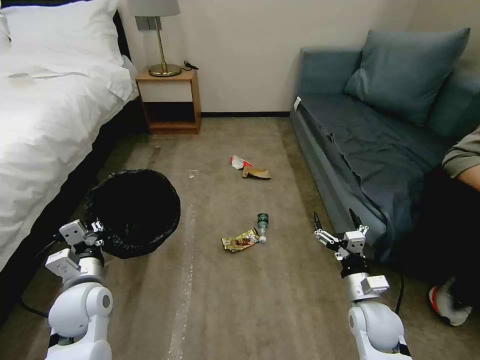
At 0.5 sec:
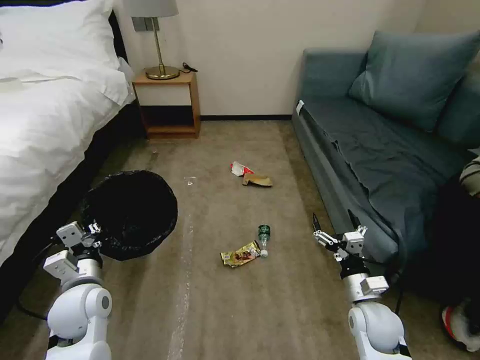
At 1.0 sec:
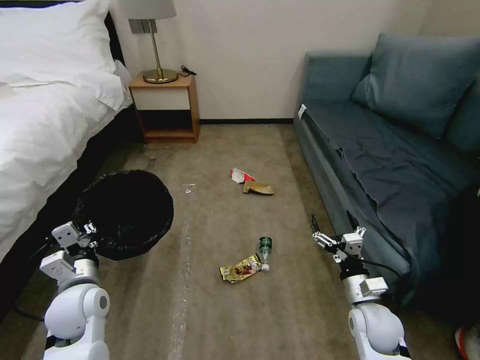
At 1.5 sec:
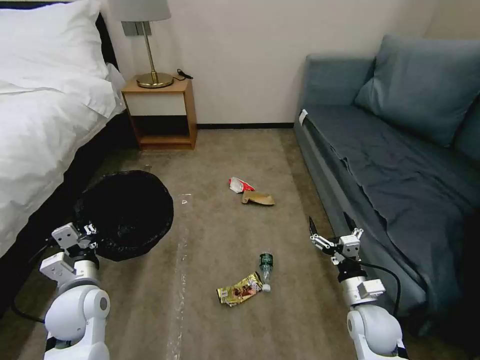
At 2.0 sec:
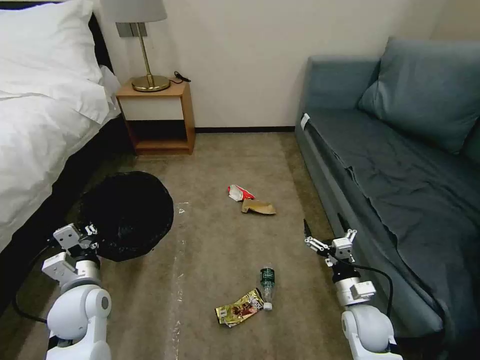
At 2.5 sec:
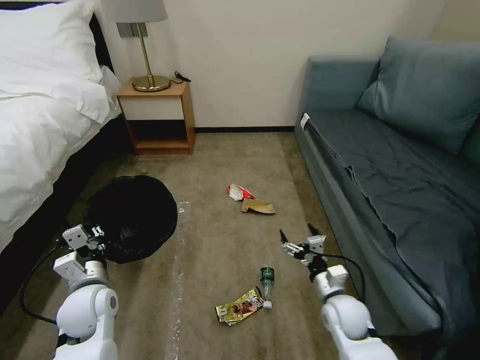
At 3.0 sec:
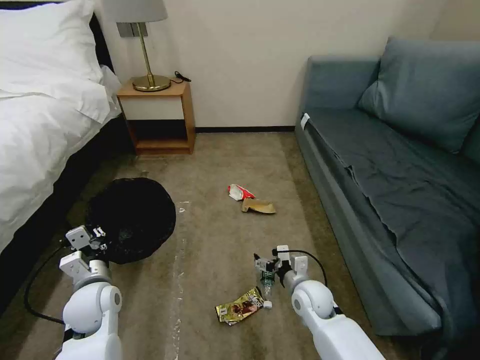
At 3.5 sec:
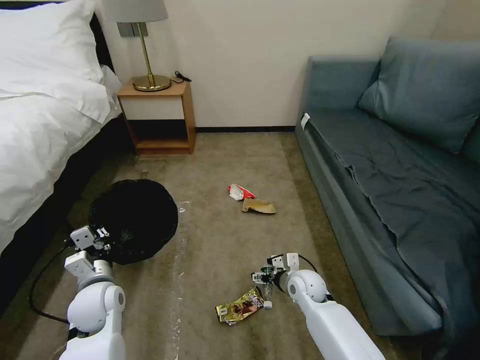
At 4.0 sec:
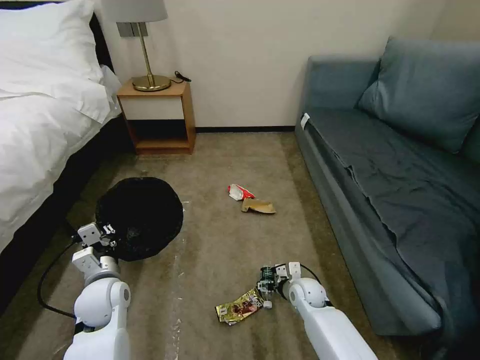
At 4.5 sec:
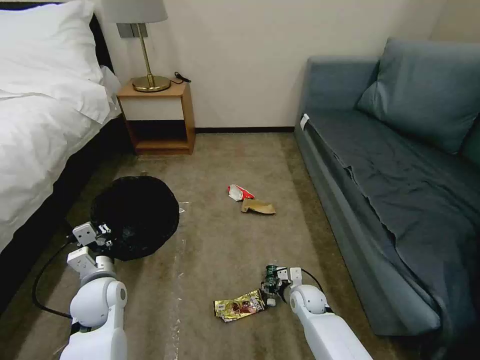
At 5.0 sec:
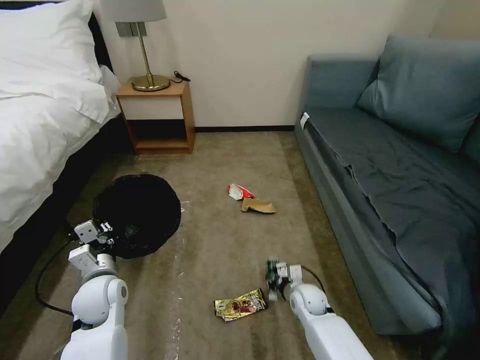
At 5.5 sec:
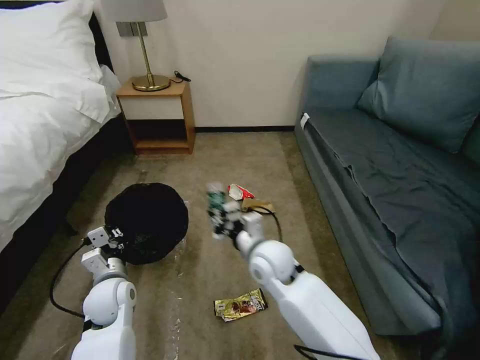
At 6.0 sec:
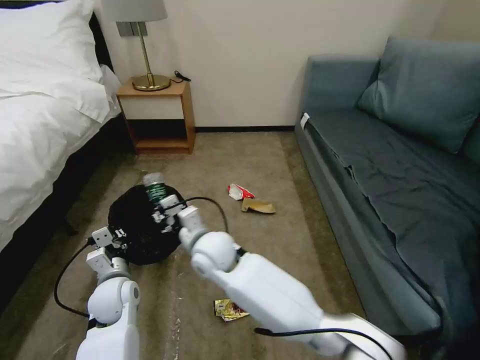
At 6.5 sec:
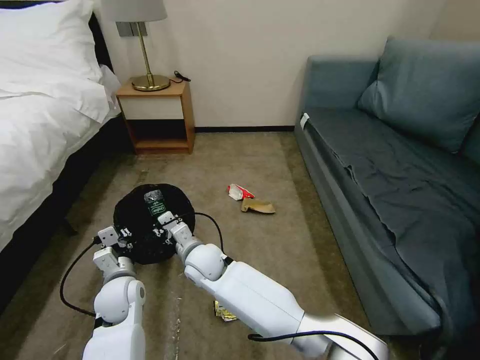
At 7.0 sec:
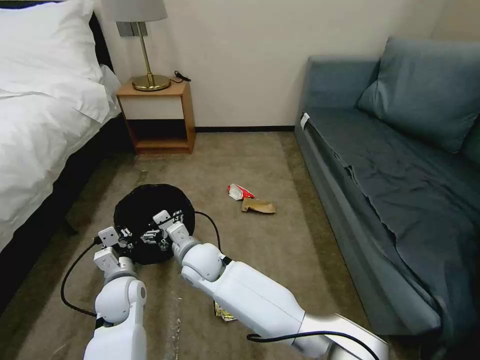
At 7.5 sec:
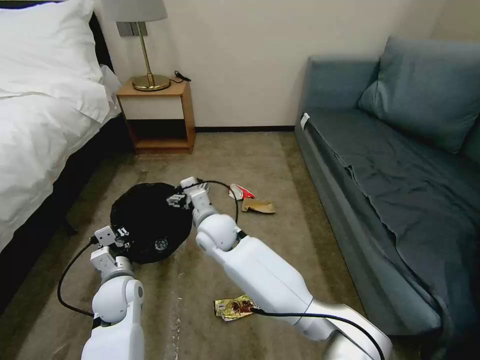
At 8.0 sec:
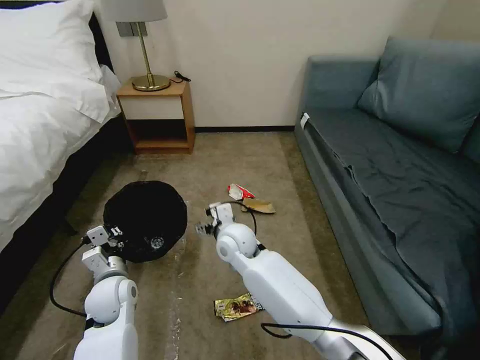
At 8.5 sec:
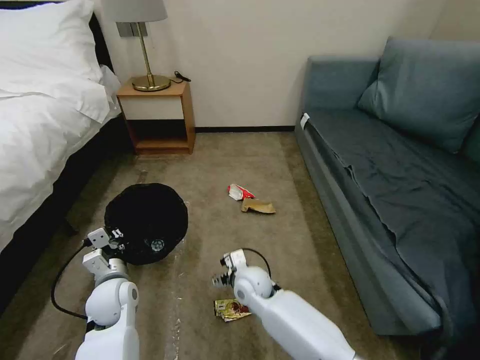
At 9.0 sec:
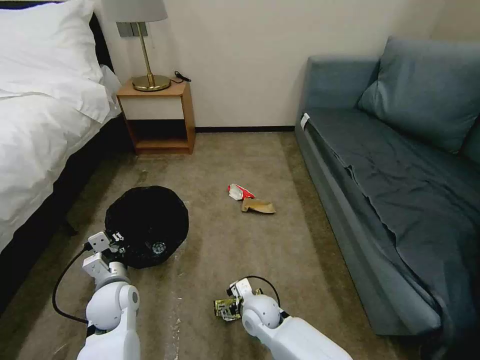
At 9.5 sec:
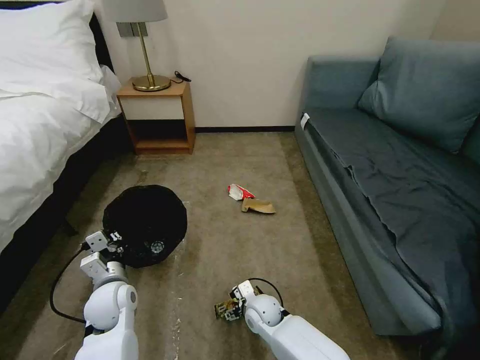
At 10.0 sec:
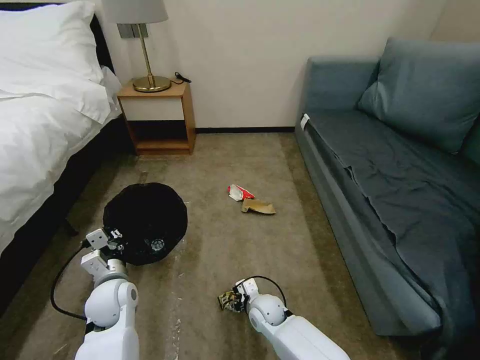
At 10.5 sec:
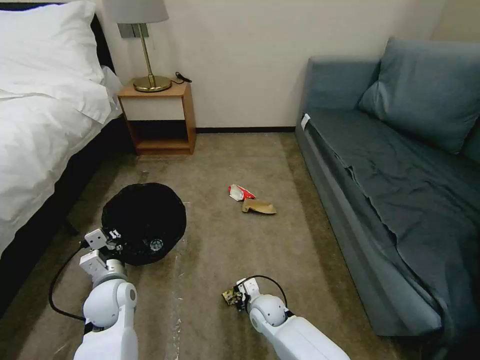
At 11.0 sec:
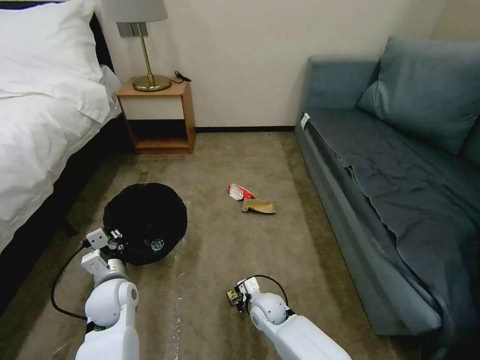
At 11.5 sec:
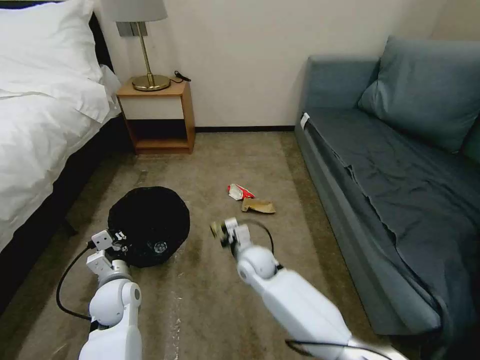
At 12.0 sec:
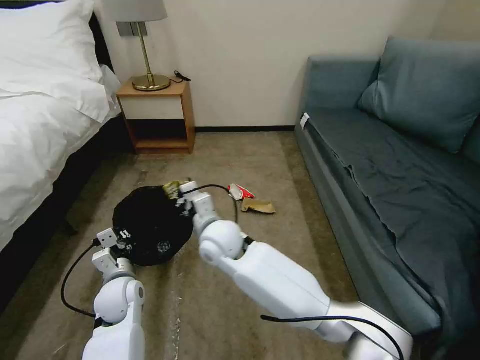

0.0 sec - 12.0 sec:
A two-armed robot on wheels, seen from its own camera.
Task of the whole recording: Pick up the trash bin, then pick up the garbage on the floor and place it into the trash bin.
2.0 sec - 4.0 sec: The right gripper shifts some 15 cm forward, to the left and downward.
4.0 sec - 6.0 sec: The right gripper shifts roughly 35 cm to the left and upward, and closes its fingers.
6.0 sec - 8.0 sec: The right gripper moves to the right, approximately 5 cm, and opens its fingers.
8.0 sec - 10.0 sec: The right gripper heads downward, backward and to the right, covering approximately 25 cm.
10.0 sec - 12.0 sec: The right gripper goes roughly 25 cm upward and to the left, and closes up.

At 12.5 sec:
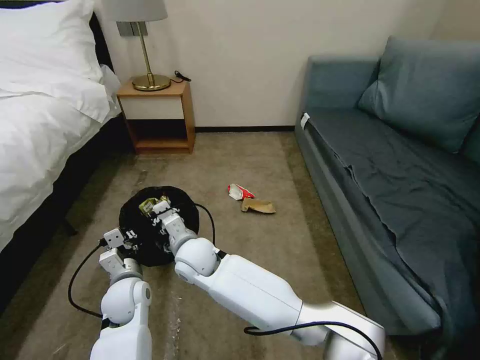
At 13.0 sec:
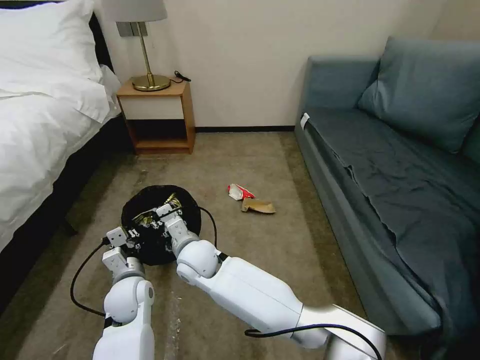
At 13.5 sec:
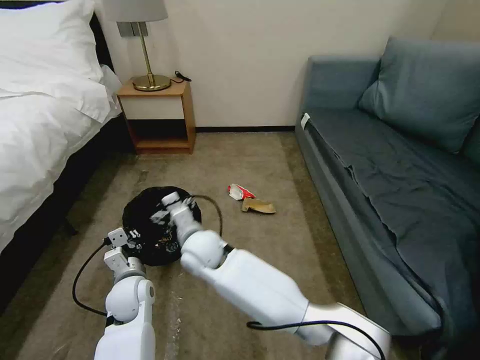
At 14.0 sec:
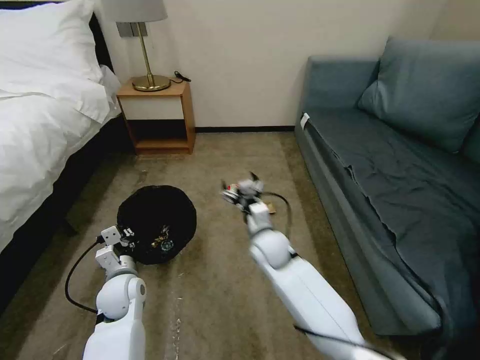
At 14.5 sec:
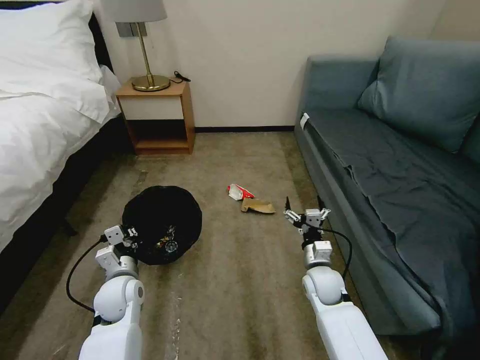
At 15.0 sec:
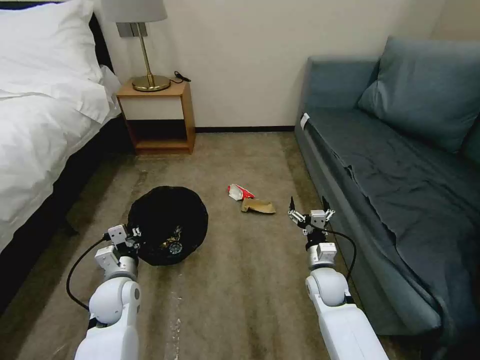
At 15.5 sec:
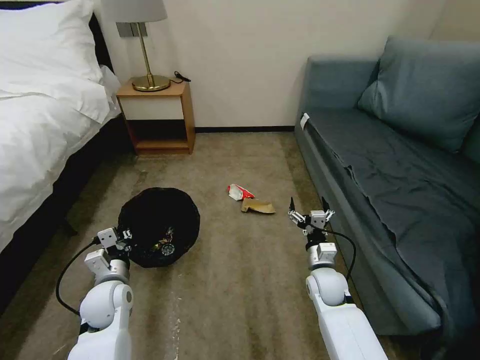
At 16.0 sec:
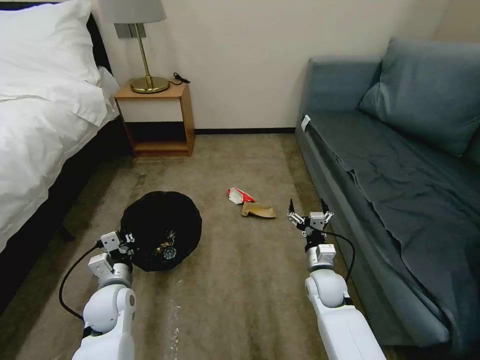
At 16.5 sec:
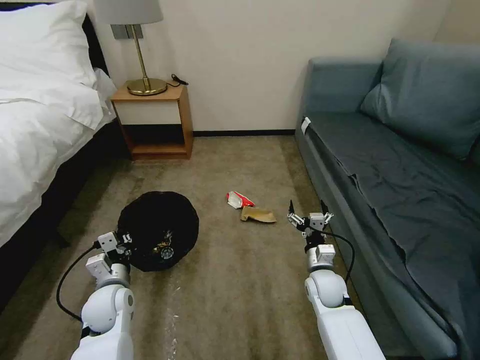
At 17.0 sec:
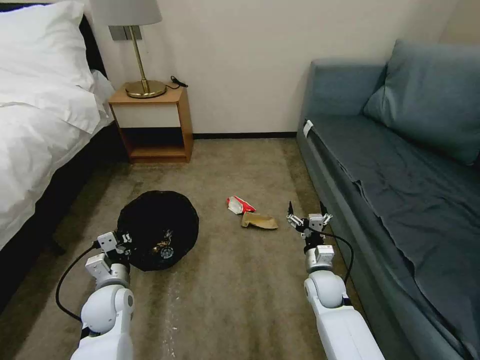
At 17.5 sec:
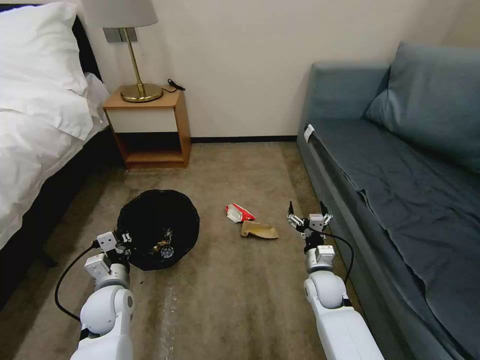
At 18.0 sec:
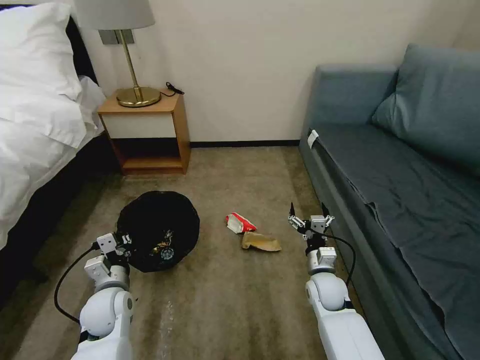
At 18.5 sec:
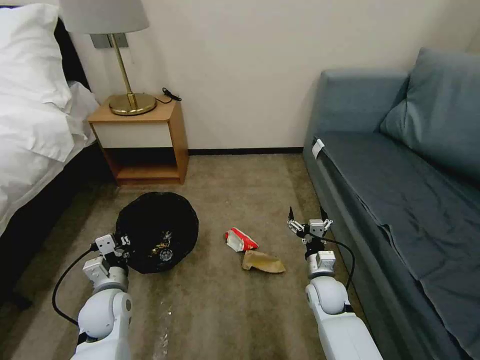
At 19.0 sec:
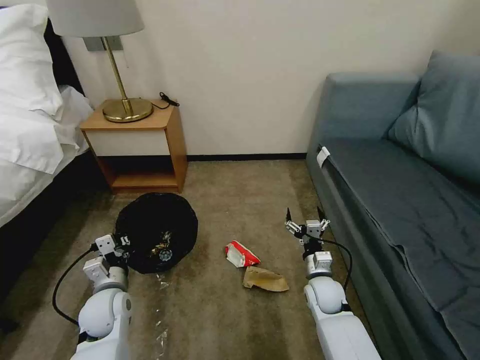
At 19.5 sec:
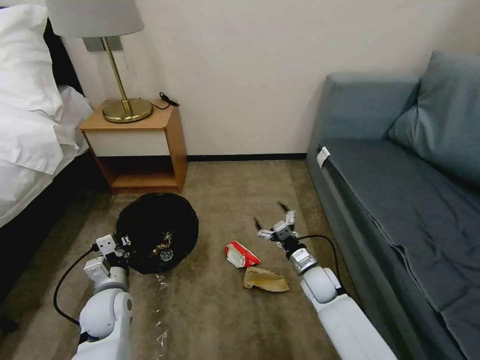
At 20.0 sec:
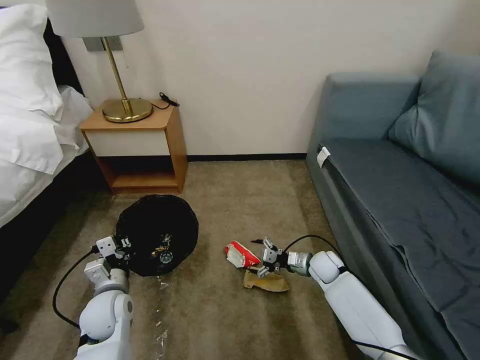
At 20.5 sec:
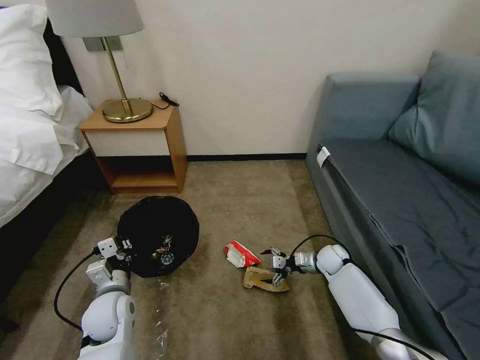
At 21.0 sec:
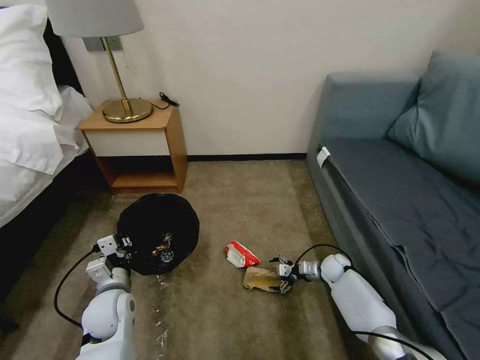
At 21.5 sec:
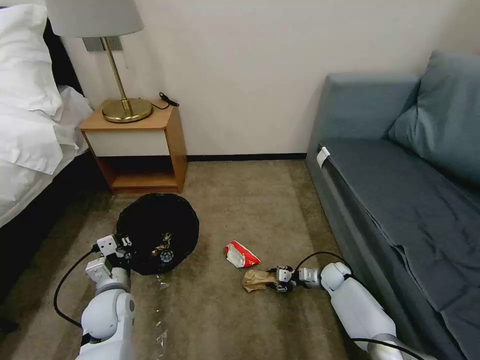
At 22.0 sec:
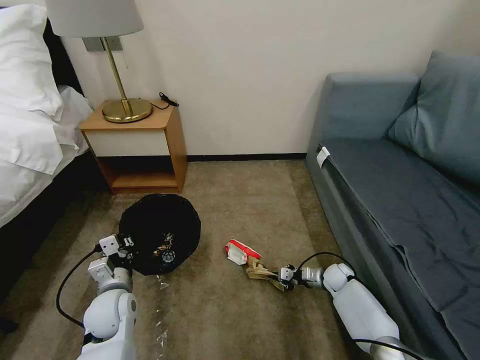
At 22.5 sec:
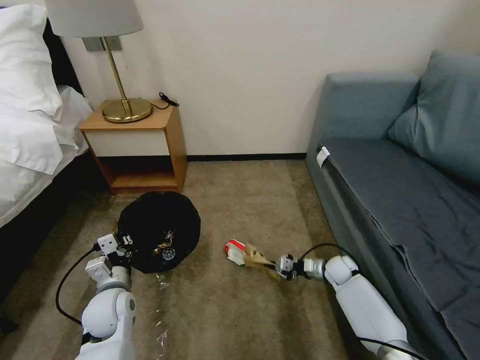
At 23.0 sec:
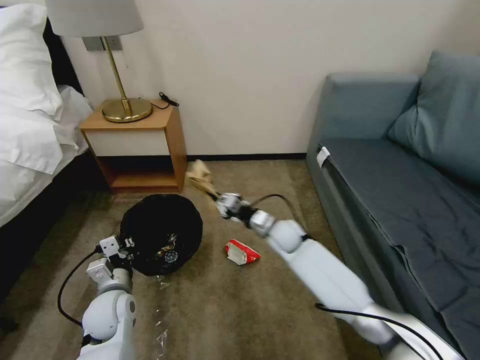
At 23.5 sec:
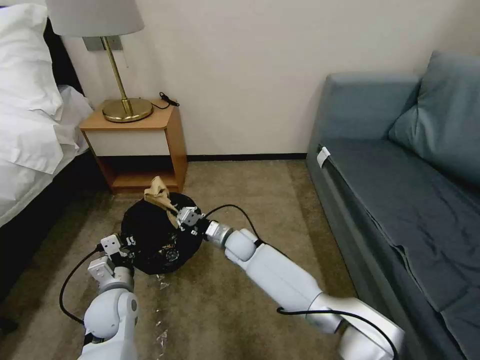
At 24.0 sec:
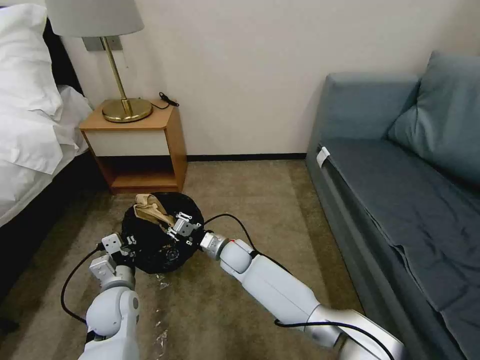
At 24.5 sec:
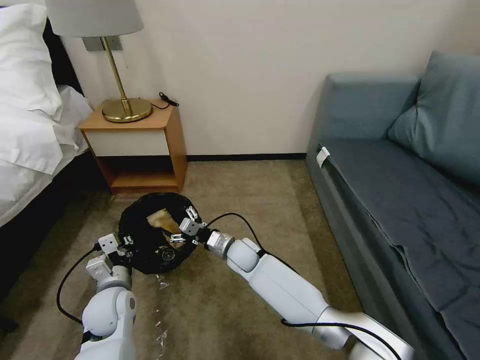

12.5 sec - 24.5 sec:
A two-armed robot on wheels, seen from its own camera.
Task of the whole recording: Pick up the trash bin, then pick up the garbage on the floor and place it into the trash bin.
12.5 sec - 14.5 sec: The right gripper shifts some 30 cm to the right, and opens up.
14.5 sec - 16.5 sec: There are only small adjustments of the grippers.
18.5 sec - 20.5 sec: The right gripper moves forward and to the right, about 15 cm.
20.5 sec - 22.5 sec: The right gripper closes its fingers.
22.5 sec - 24.5 sec: The right gripper is displaced to the left by approximately 30 cm, and opens.

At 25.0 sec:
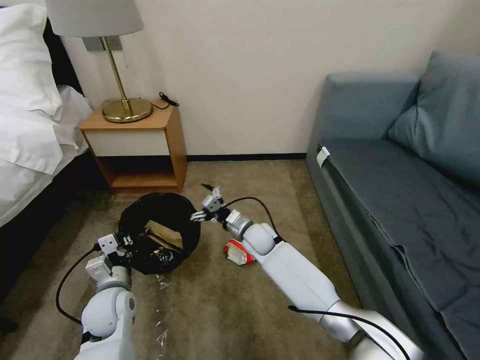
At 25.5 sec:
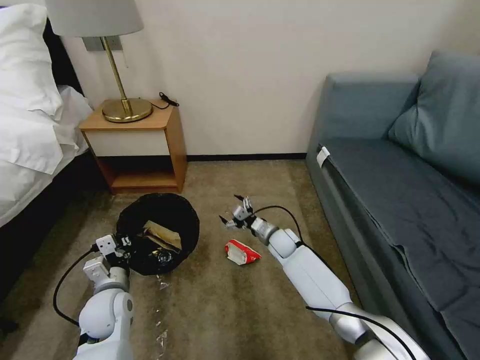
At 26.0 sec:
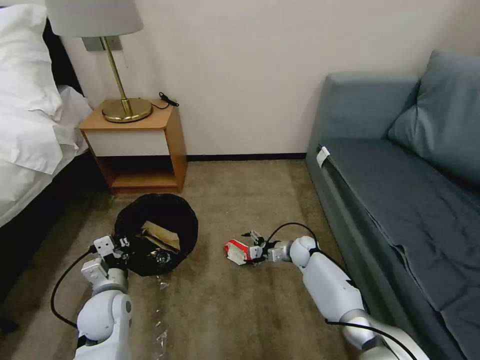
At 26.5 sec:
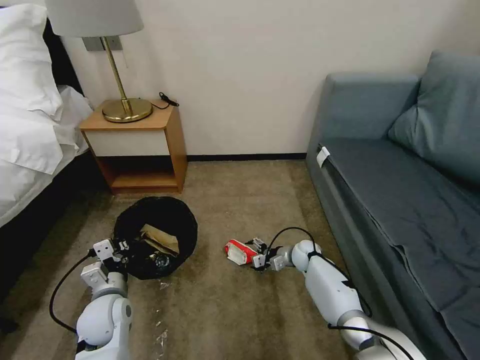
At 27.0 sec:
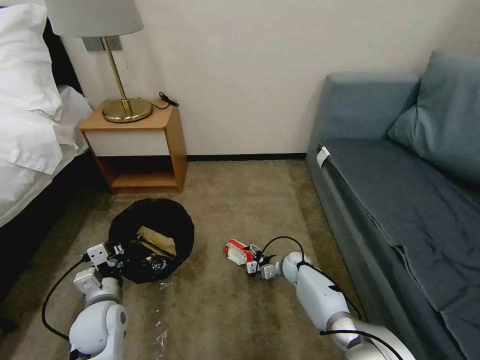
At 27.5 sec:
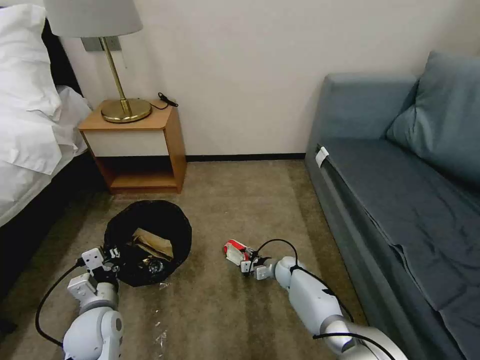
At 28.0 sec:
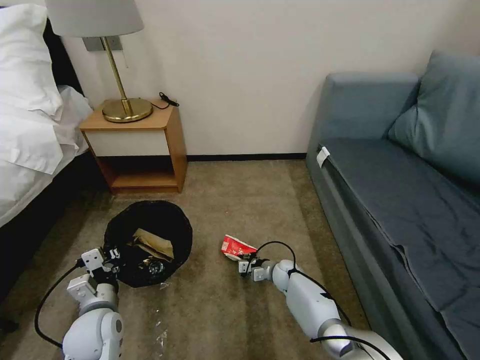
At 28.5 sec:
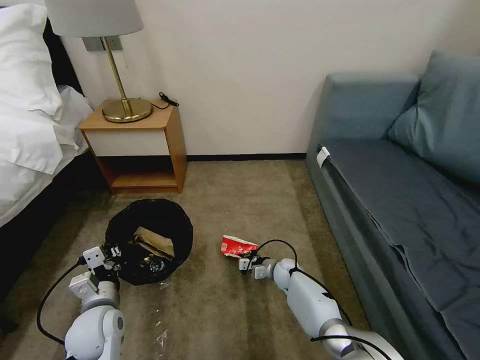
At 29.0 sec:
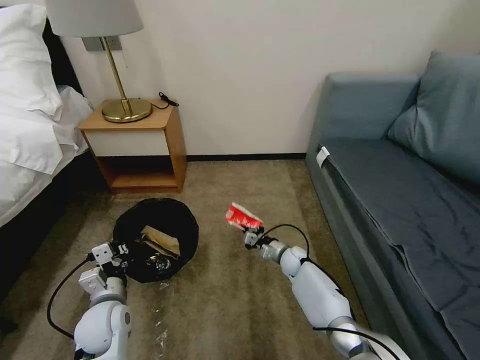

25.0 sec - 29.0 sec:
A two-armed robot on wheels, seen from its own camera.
Task of the whole recording: Pick up the trash bin, then pick up the garbage on the floor and place it into the trash bin.
25.0 sec - 27.0 sec: The right gripper travels downward and to the right by about 20 cm.
27.0 sec - 29.0 sec: The right gripper closes up.
